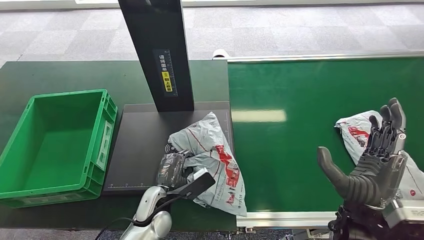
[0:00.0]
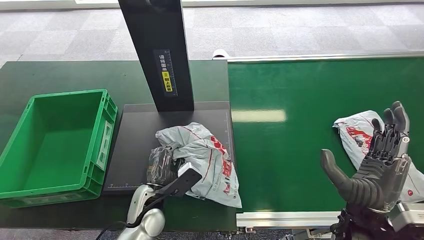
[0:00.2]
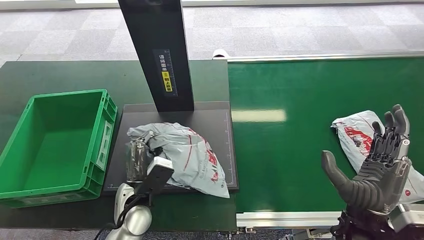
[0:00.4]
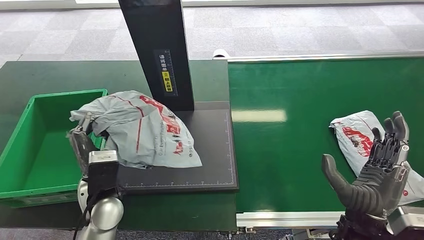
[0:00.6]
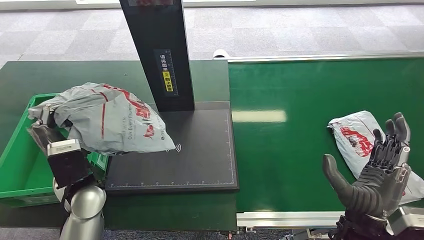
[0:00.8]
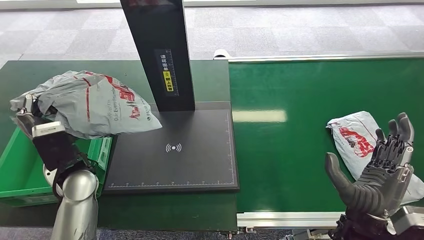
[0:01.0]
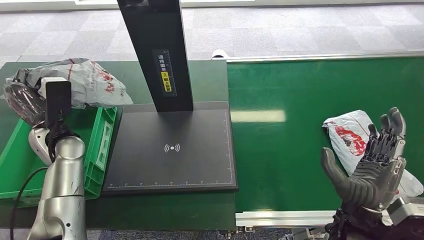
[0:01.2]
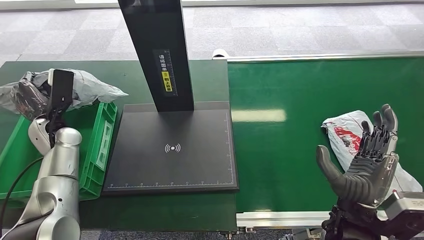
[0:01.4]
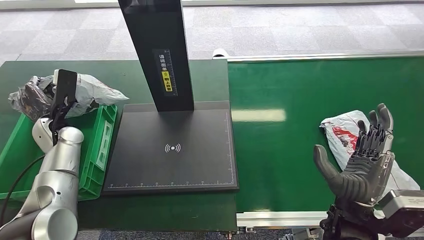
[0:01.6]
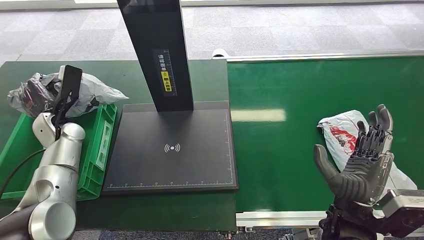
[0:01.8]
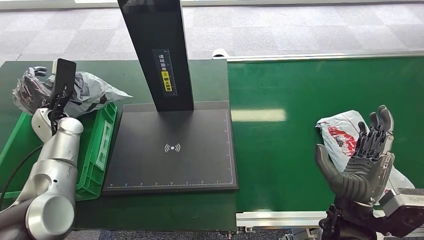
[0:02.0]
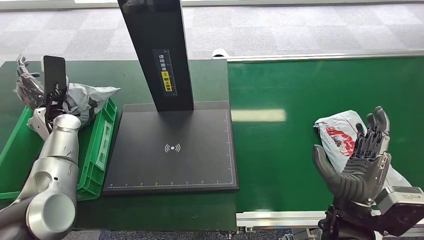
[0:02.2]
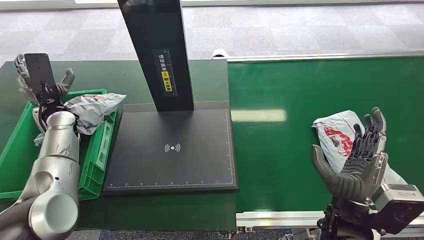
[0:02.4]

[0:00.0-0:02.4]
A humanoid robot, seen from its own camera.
Step, 0:00.0 to 0:00.6: Pick up the package from the inbound machine.
Step, 0:01.0 to 0:02.2: Place the package into the parcel locker.
